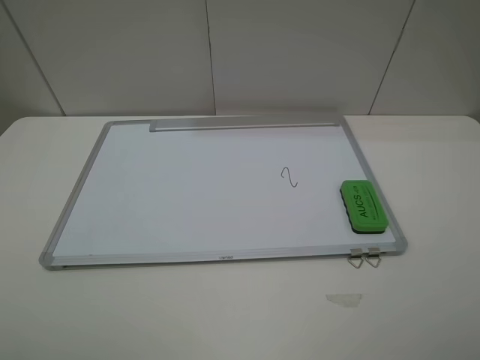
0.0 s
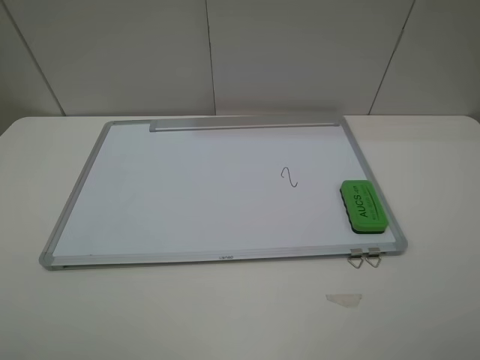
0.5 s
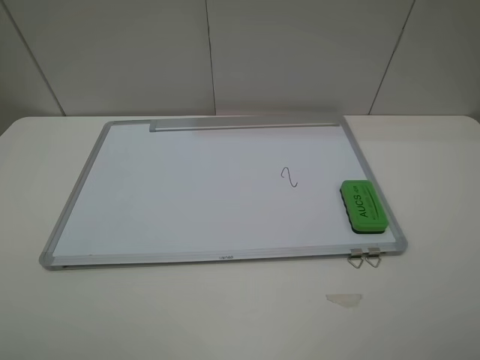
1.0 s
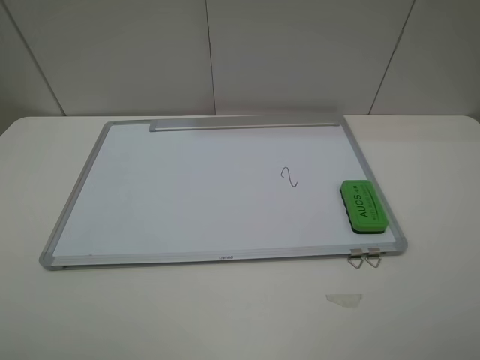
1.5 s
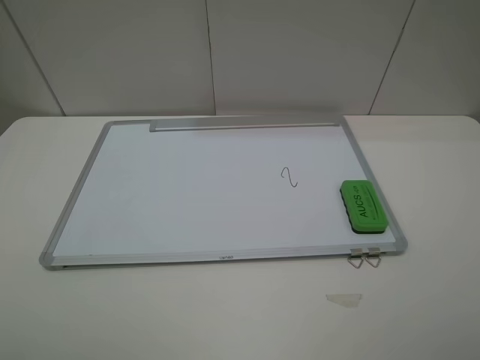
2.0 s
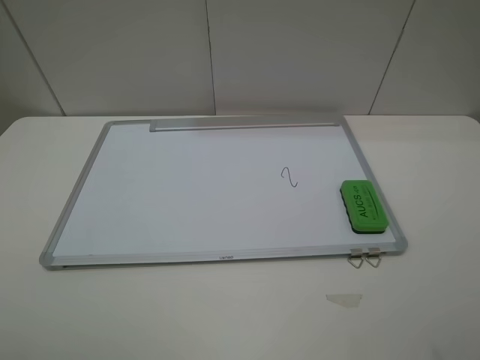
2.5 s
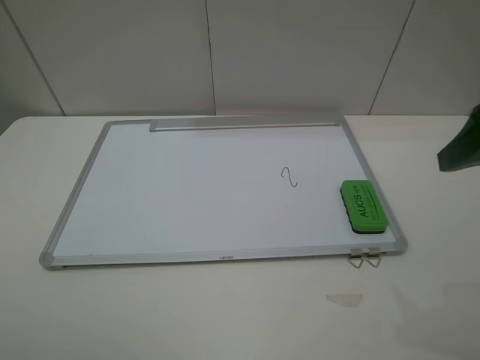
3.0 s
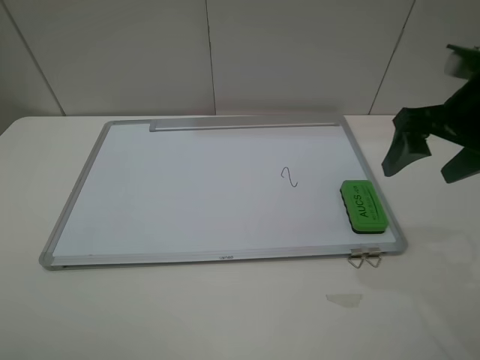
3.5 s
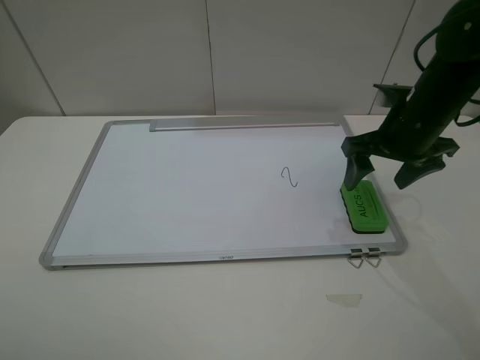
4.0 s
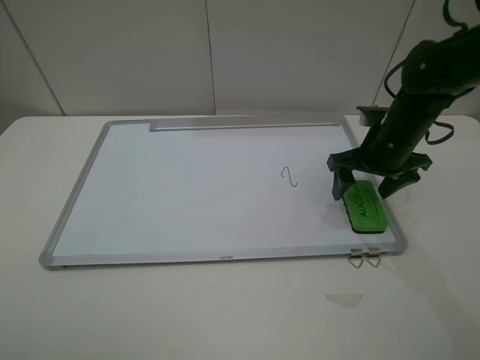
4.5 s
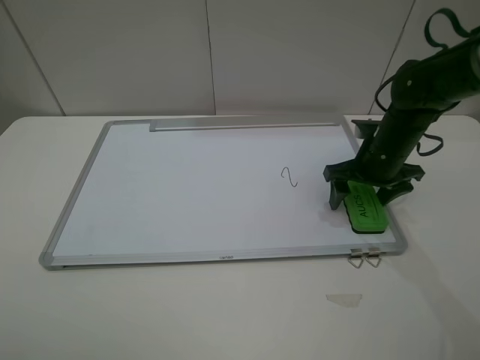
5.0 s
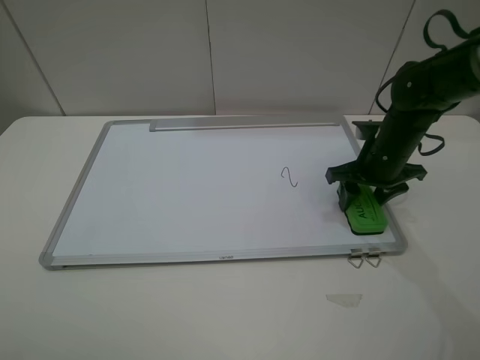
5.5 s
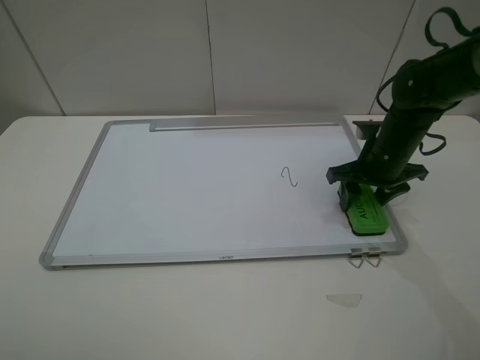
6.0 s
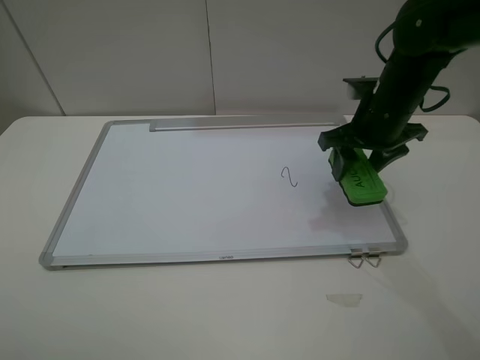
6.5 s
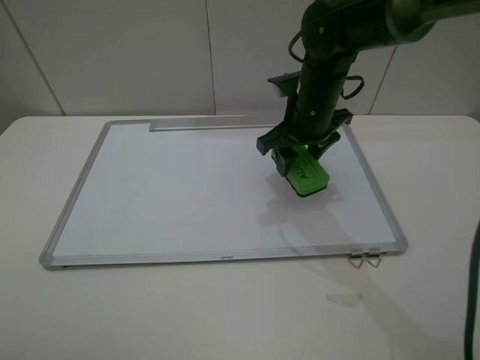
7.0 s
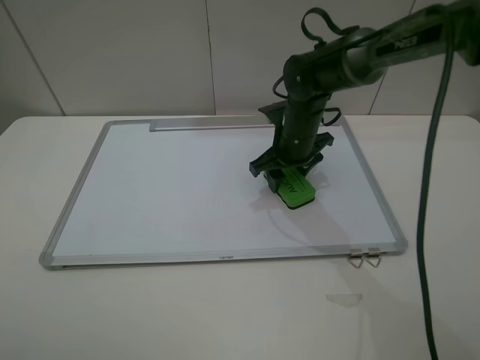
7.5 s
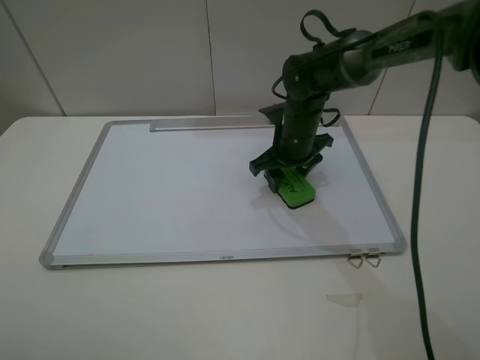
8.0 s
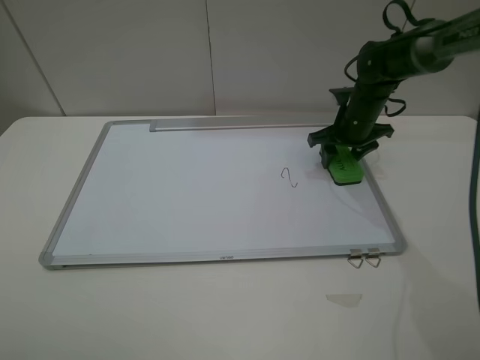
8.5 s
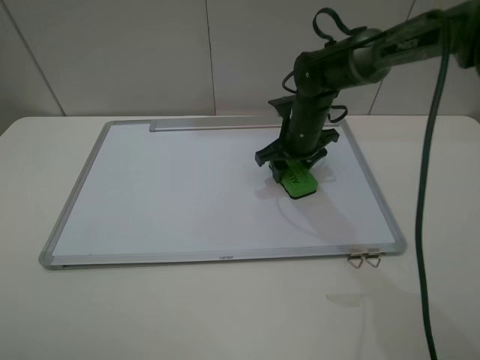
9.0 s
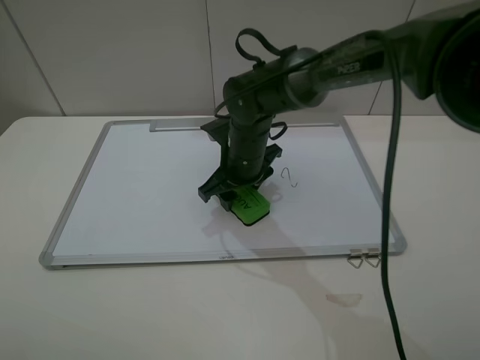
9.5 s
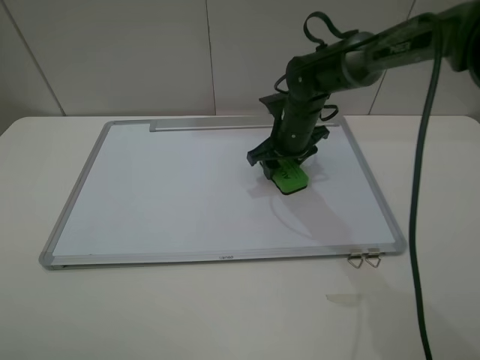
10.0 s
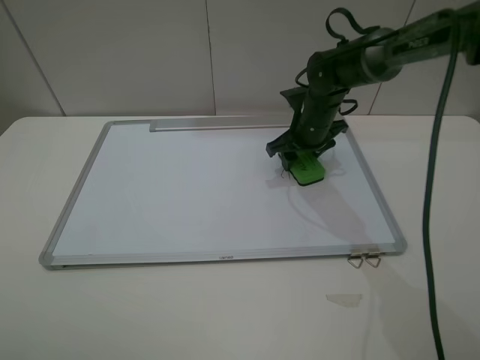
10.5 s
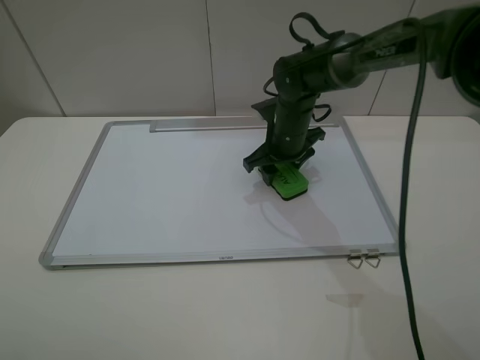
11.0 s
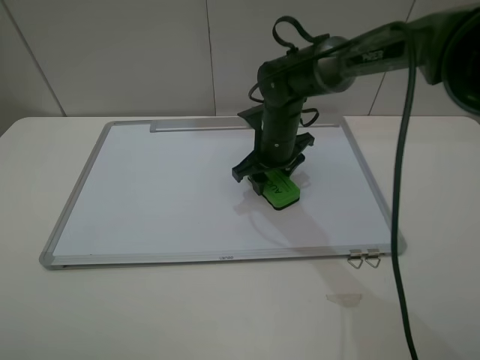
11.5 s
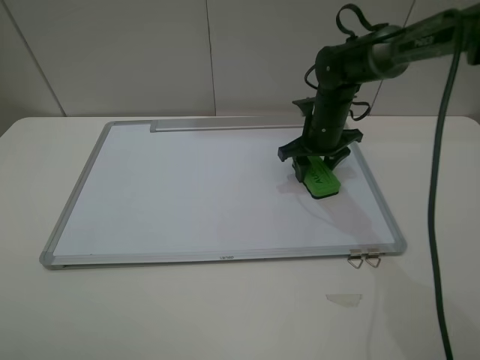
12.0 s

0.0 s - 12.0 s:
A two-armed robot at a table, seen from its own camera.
Step, 0.0 s - 5.5 s: Grasp the eraser with the right gripper.
0.0 s - 2.0 s: Both grippers stay put.
2.0 s - 4.0 s: The right gripper is displaced forward by about 30 cm.
4.0 s - 6.0 s: The right gripper heads downward, covering roughly 5 cm, and closes up.
6.0 s - 8.0 s: The right gripper is displaced to the left and forward by roughly 15 cm.
8.0 s - 10.0 s: The right gripper goes left and right, about 20 cm each way, reversing 2 times.
10.0 s - 12.0 s: The right gripper is displaced to the right by about 5 cm.

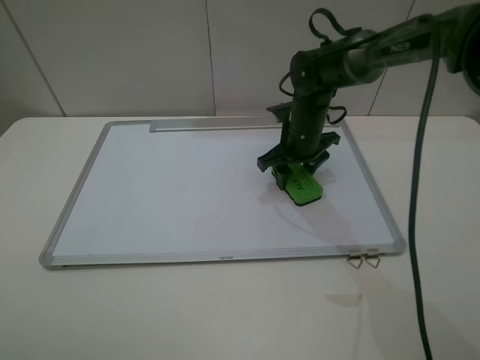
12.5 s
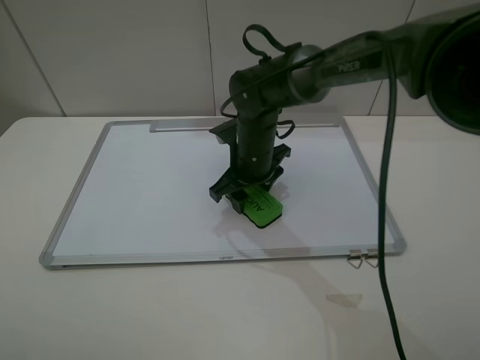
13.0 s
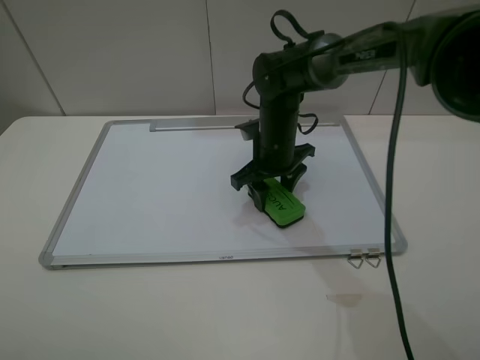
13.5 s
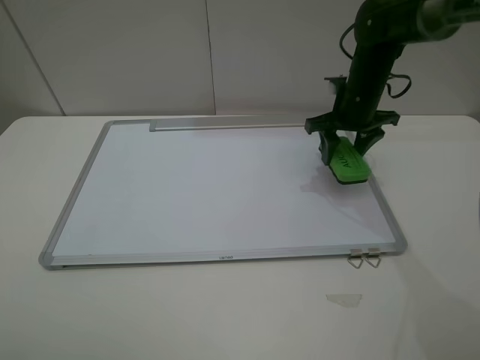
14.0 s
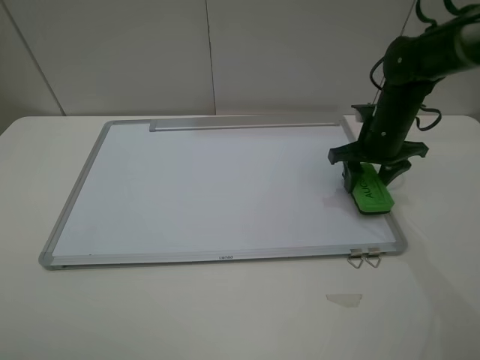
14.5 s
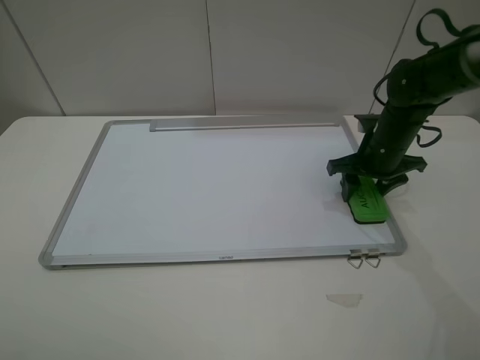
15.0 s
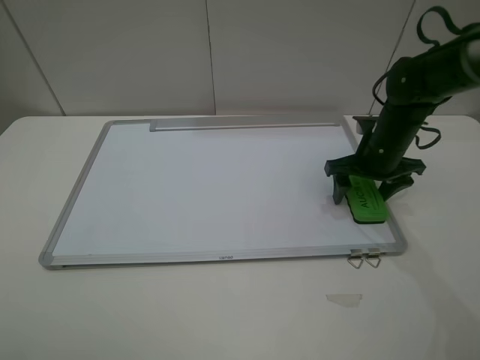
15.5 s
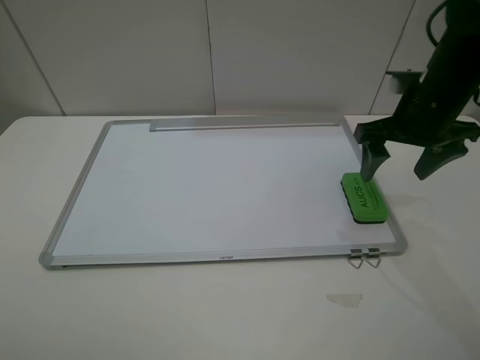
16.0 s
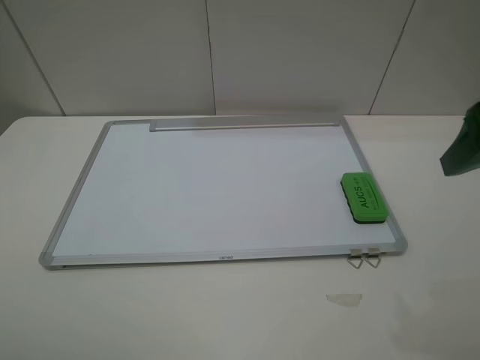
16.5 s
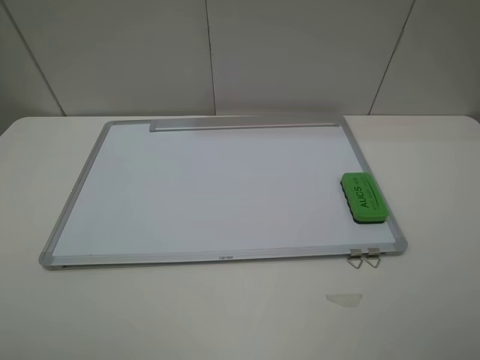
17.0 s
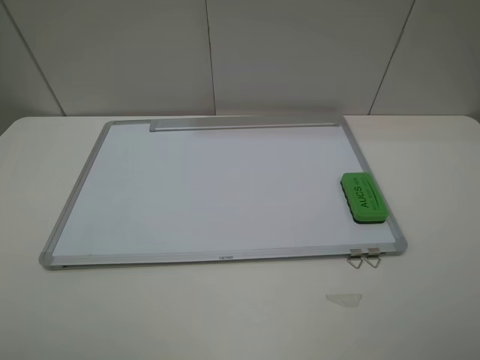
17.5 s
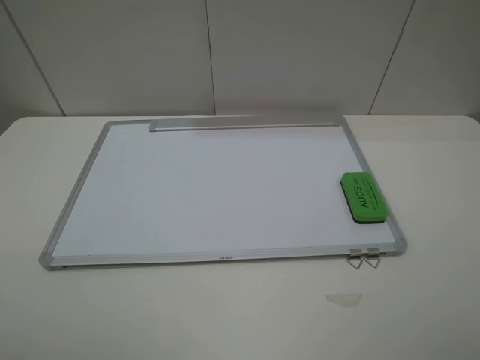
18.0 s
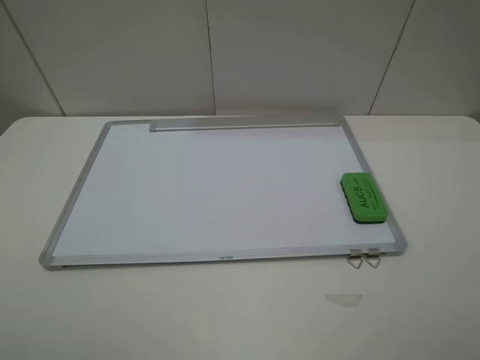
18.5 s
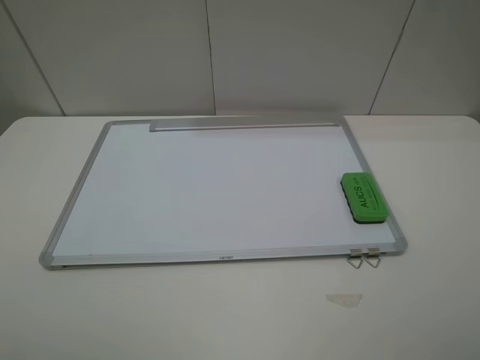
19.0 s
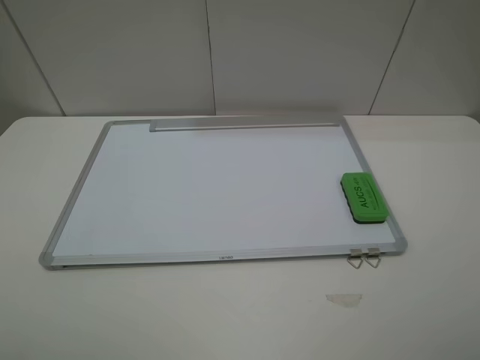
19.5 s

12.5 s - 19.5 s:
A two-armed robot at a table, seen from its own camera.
Step, 13.5 s - 15.5 s: Place the eraser with the right gripper.
12.5 s - 14.5 s: The right gripper is displaced to the right by some 15 cm.
14.5 s - 16.0 s: The right gripper heads upward and backward, covering roughly 10 cm, and opens.
16.0 s - 17.5 s: The right gripper travels backward by some 30 cm.
